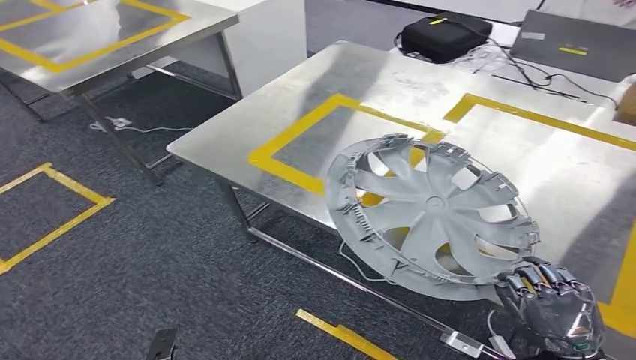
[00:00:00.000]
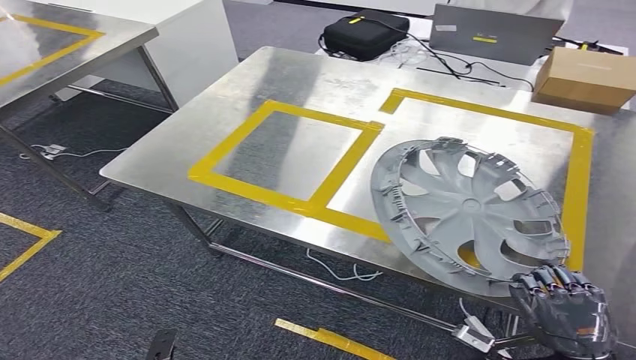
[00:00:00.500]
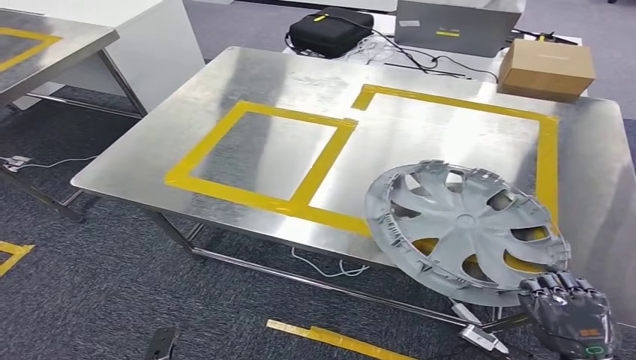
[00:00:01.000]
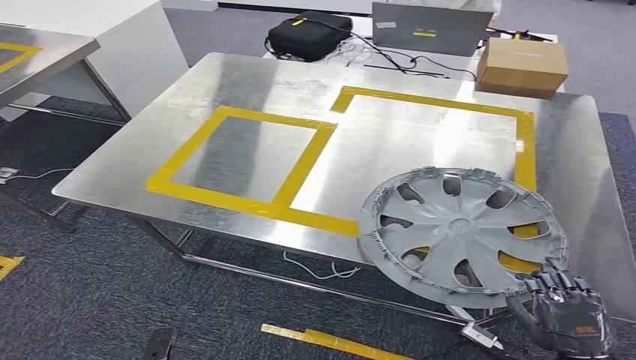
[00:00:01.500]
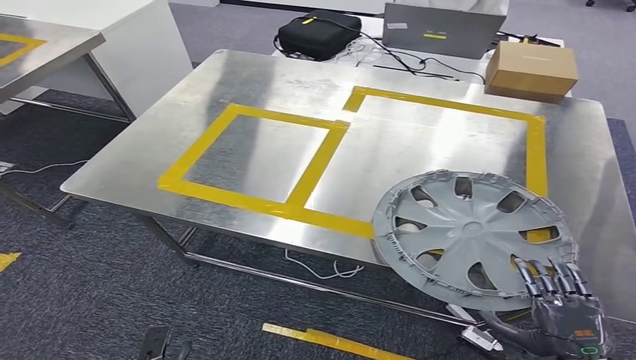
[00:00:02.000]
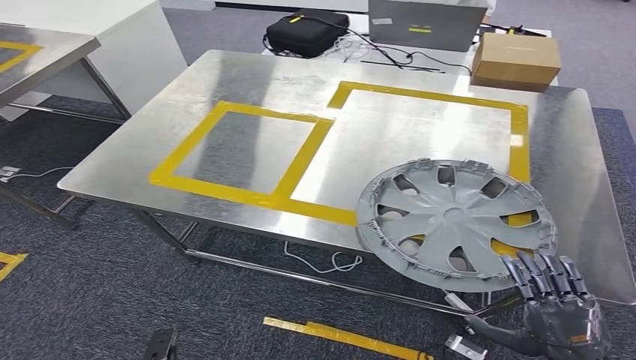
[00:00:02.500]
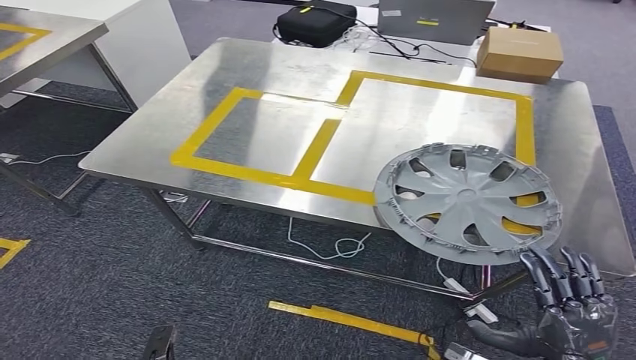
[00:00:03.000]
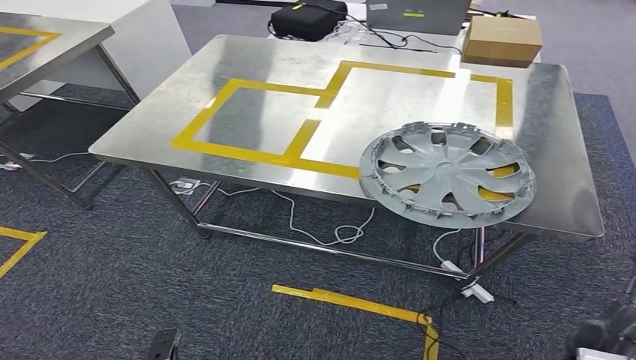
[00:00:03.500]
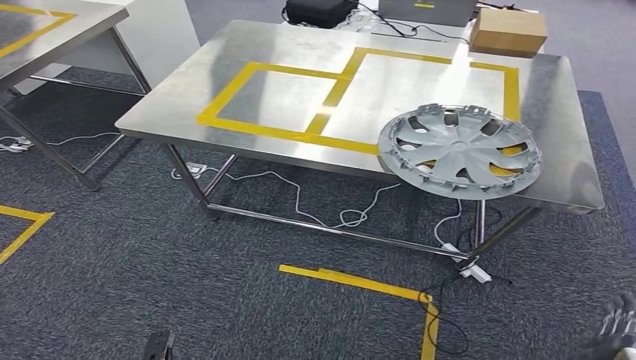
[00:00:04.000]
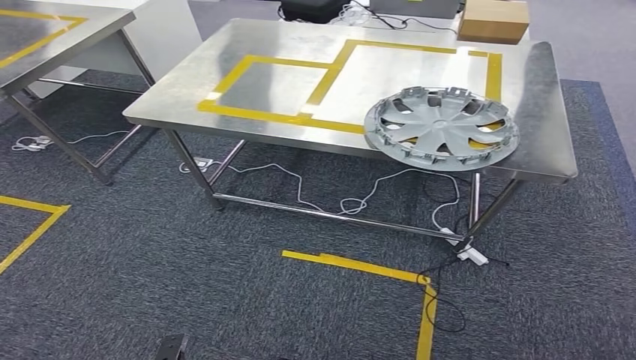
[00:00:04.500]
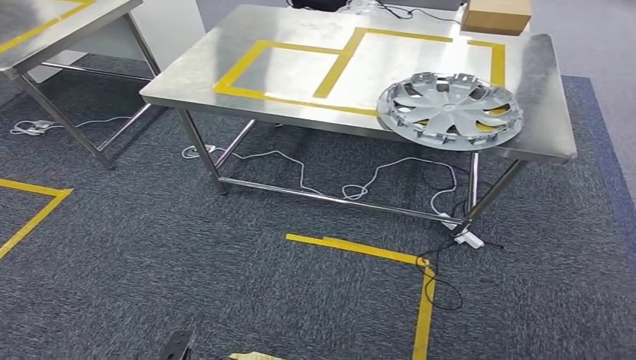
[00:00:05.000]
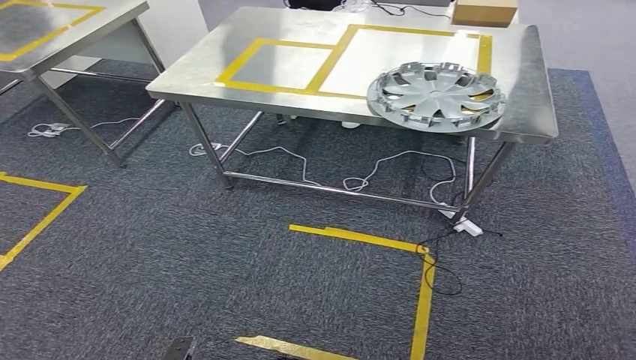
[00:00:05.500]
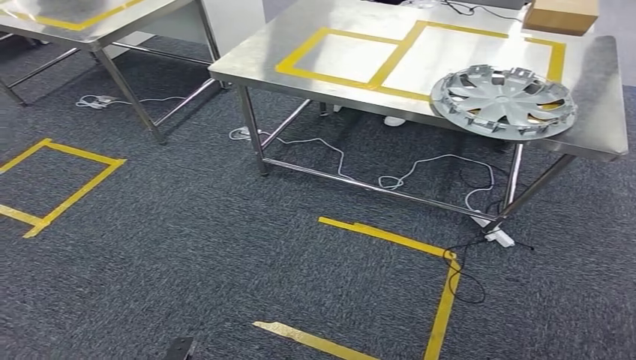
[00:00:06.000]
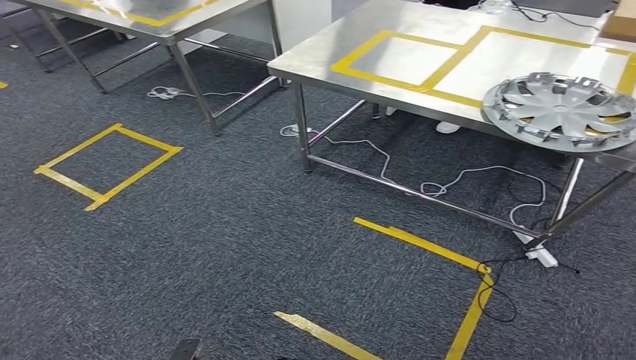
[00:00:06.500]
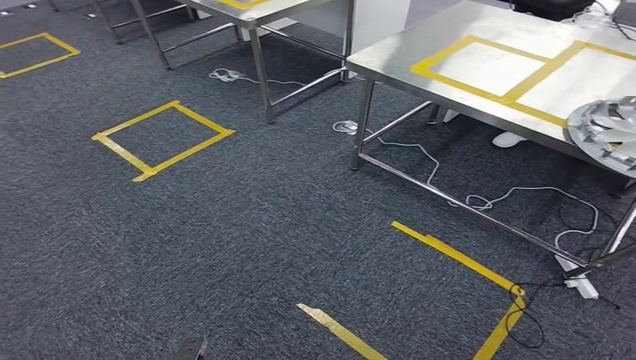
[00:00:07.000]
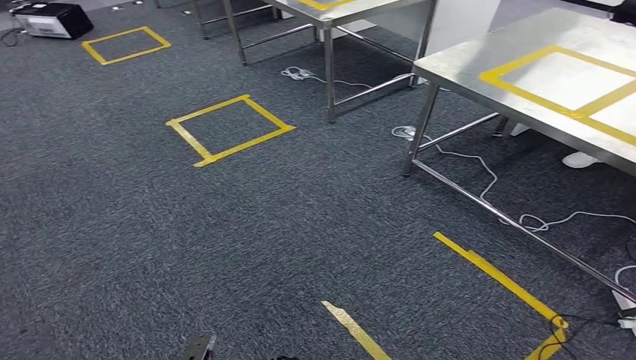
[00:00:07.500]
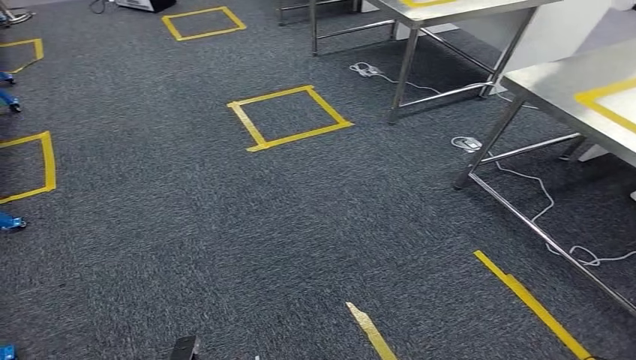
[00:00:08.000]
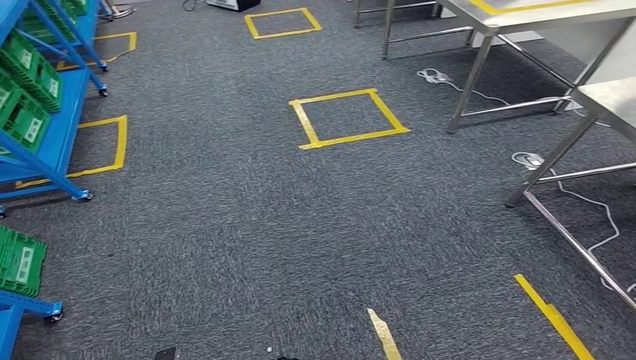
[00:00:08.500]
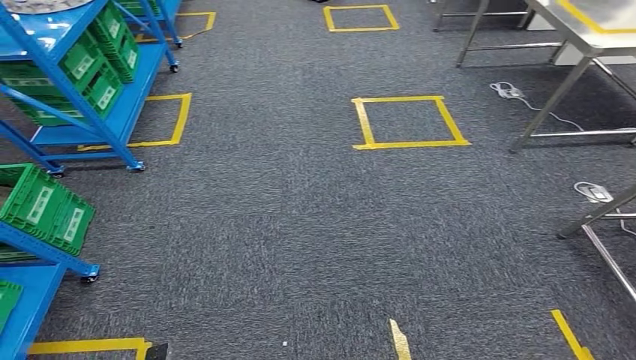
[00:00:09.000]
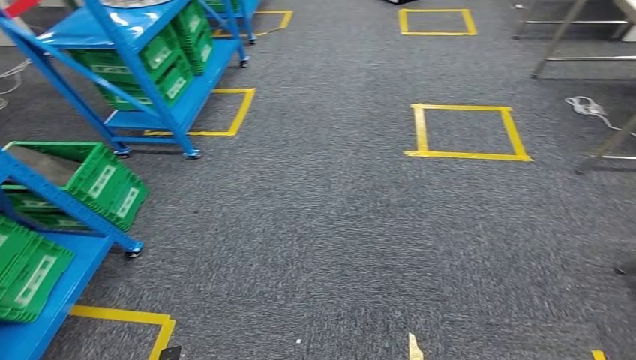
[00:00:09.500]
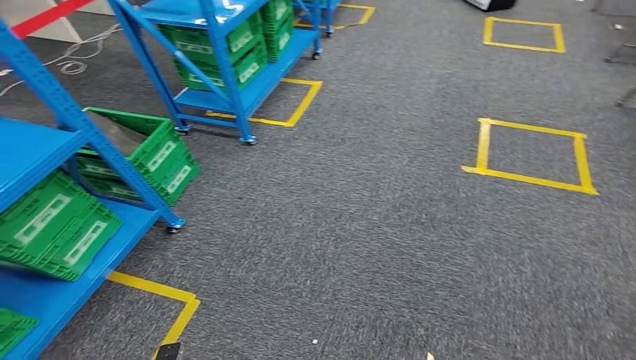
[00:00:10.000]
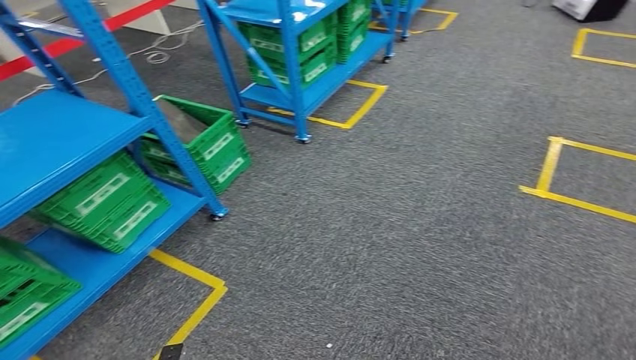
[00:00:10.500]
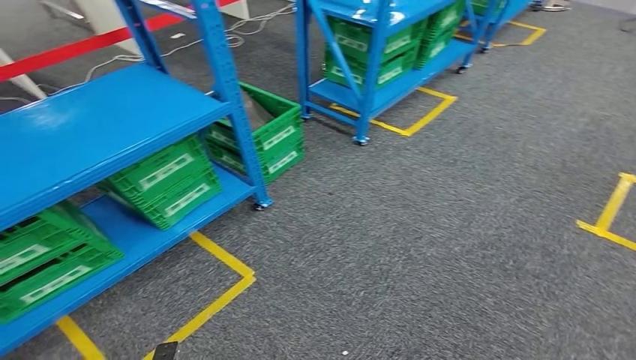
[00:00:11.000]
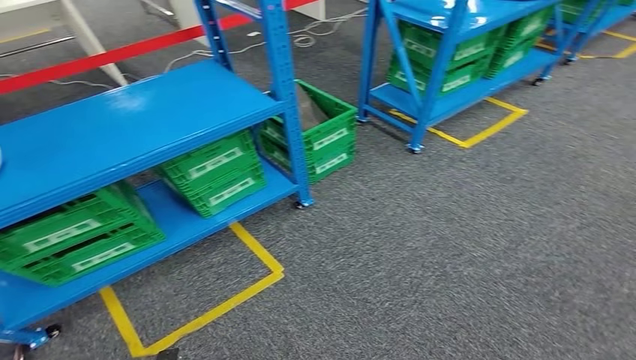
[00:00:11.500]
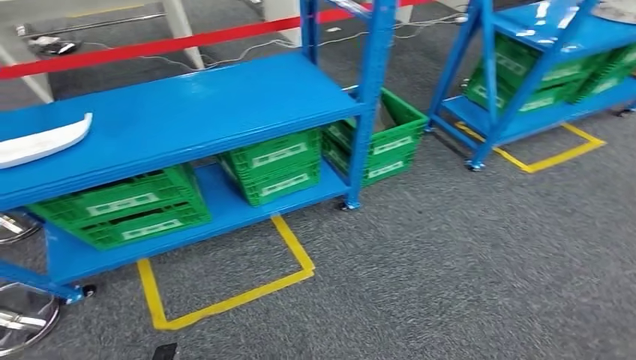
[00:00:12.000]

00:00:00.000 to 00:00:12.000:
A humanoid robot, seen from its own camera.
Step, 00:00:00.500 to 00:00:07.000: Insert the small parts into the corresponding holes on the workbench.

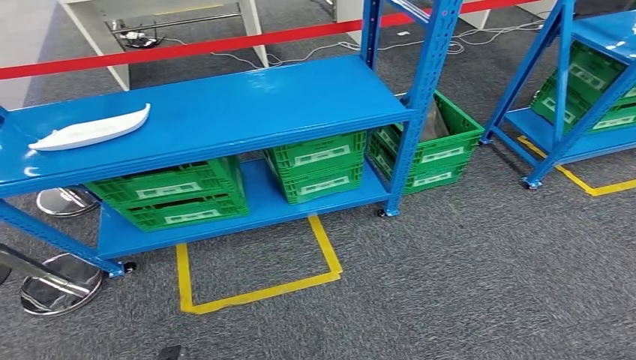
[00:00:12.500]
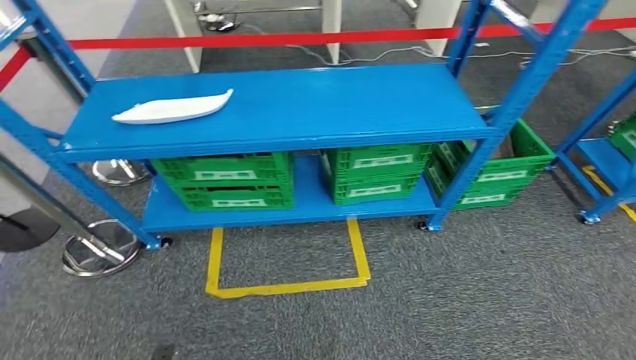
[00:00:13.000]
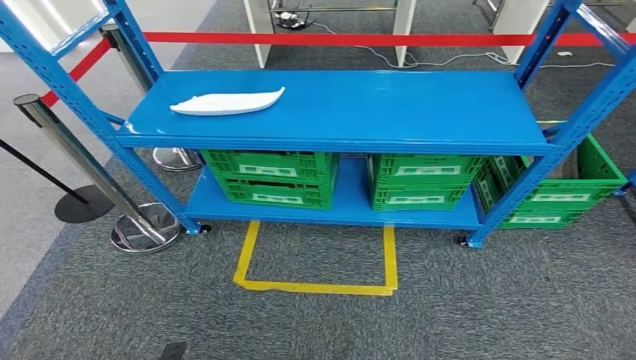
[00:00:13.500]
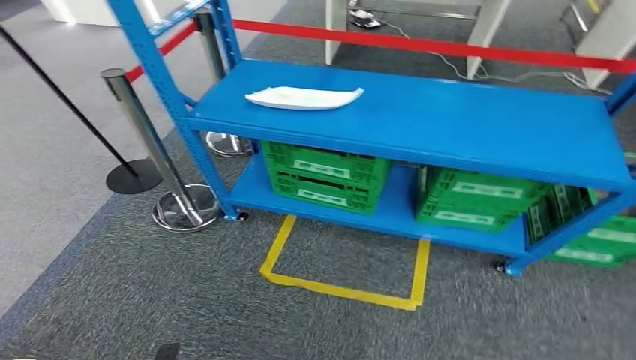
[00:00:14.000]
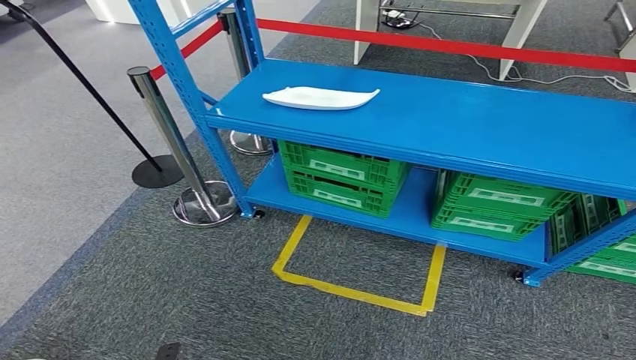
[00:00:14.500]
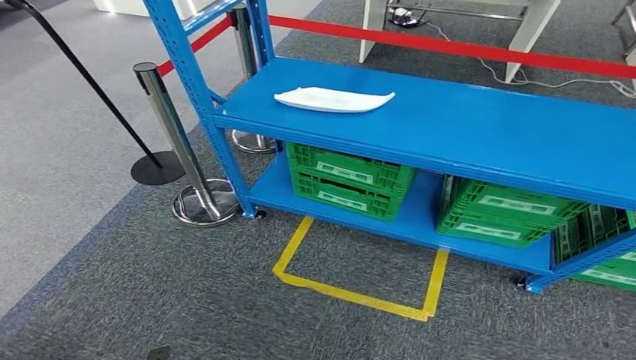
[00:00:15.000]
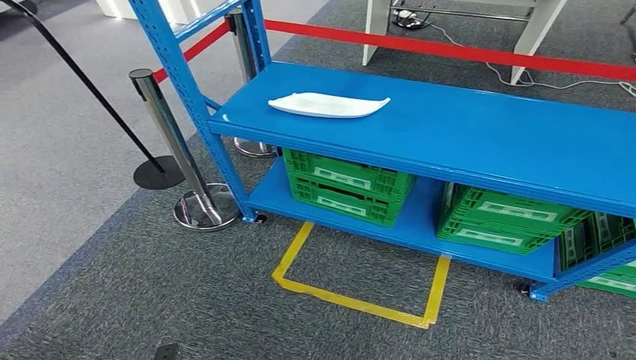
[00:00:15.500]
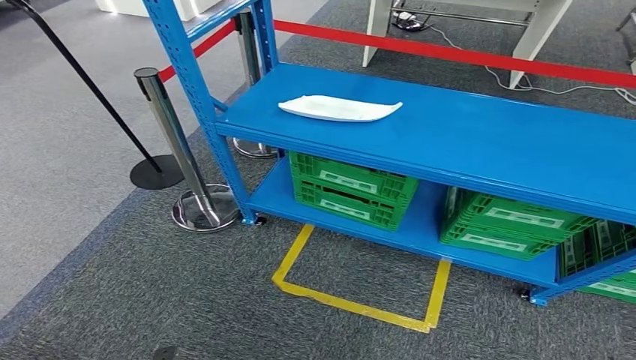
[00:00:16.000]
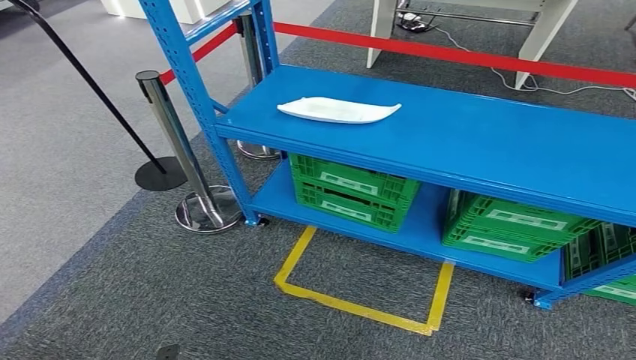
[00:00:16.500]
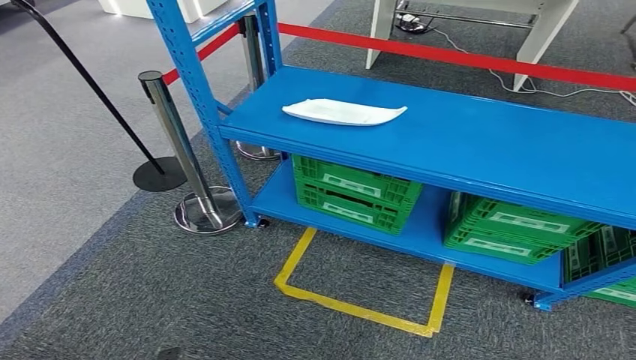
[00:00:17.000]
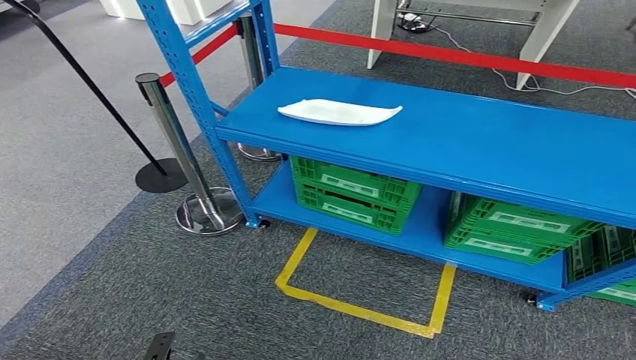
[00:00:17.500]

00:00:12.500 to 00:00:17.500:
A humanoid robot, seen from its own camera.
Step, 00:00:12.500 to 00:00:17.500: Move to the initial position at the workbench.
